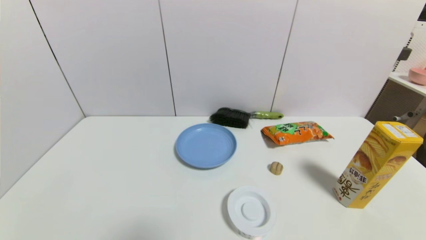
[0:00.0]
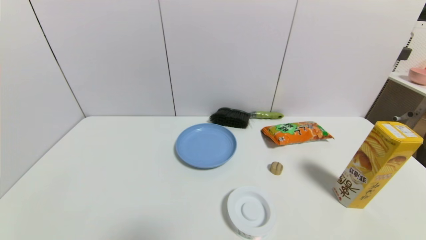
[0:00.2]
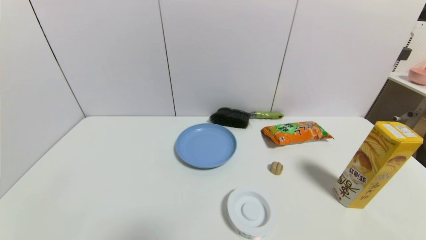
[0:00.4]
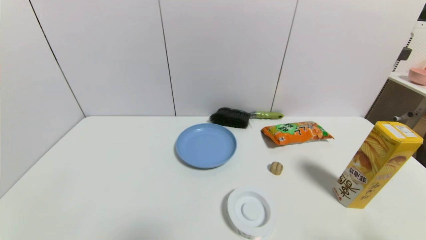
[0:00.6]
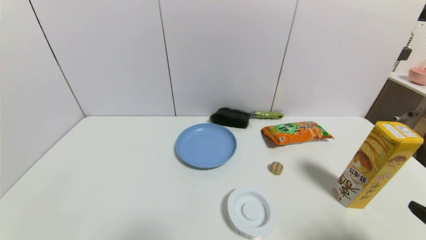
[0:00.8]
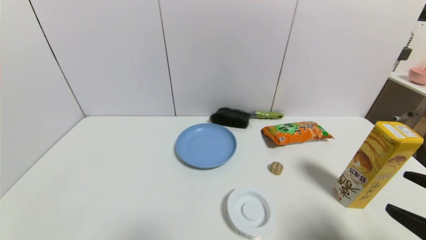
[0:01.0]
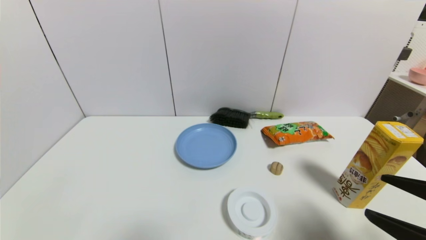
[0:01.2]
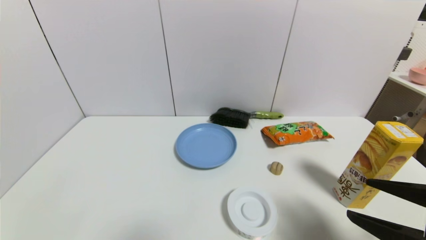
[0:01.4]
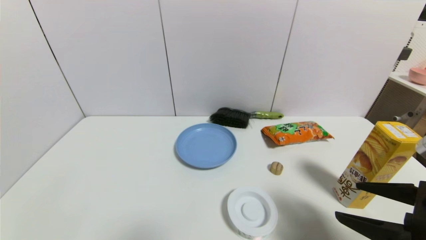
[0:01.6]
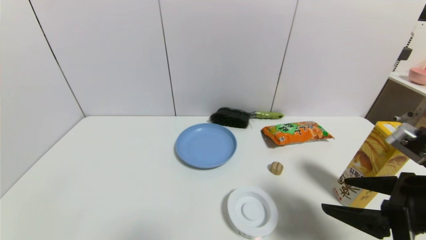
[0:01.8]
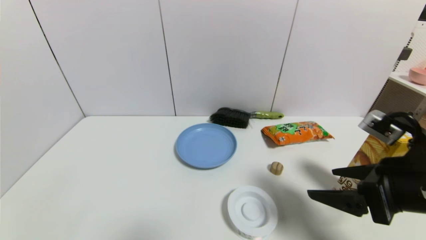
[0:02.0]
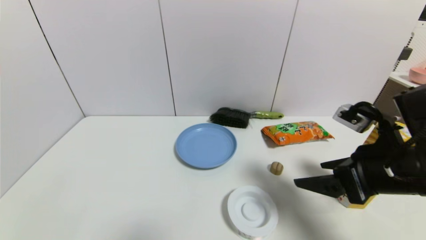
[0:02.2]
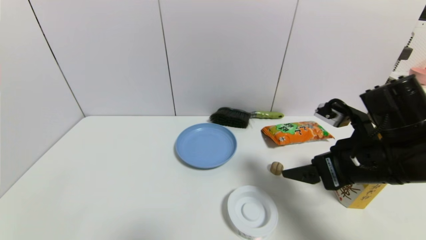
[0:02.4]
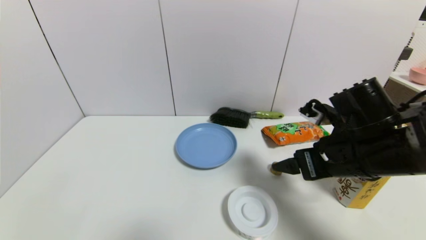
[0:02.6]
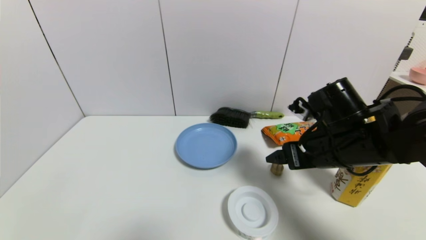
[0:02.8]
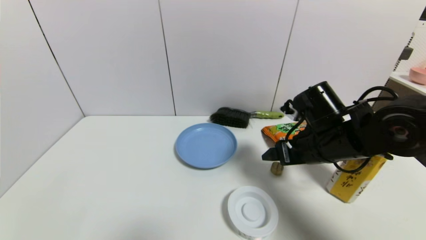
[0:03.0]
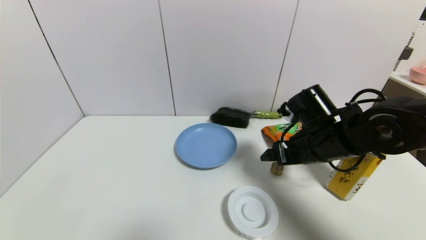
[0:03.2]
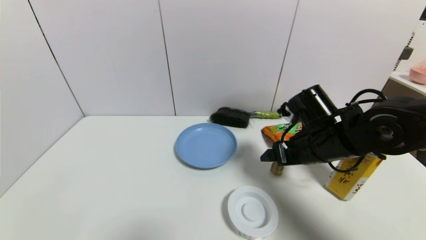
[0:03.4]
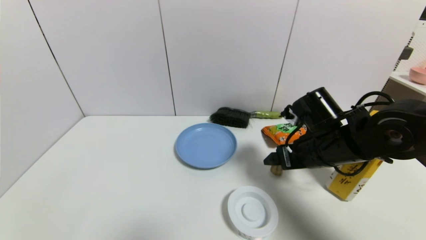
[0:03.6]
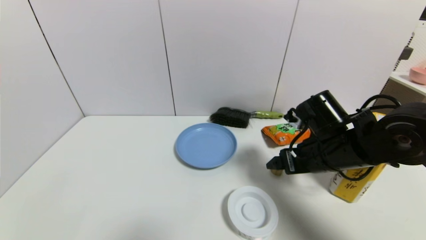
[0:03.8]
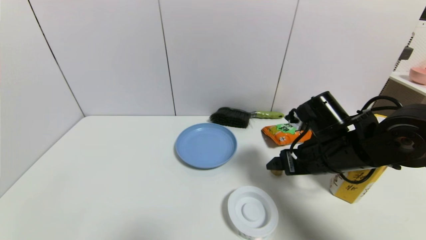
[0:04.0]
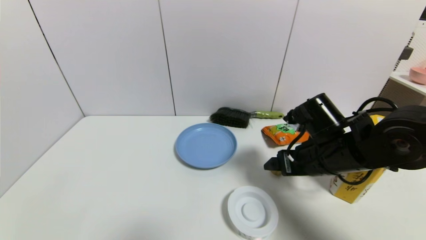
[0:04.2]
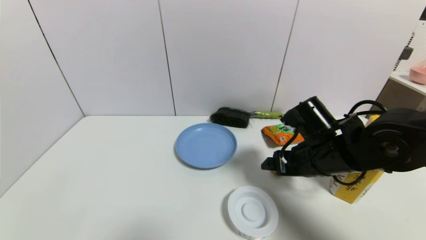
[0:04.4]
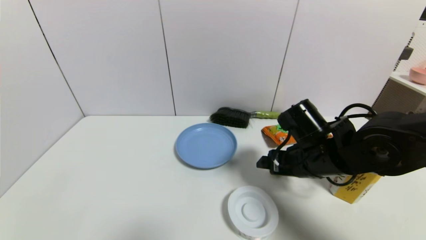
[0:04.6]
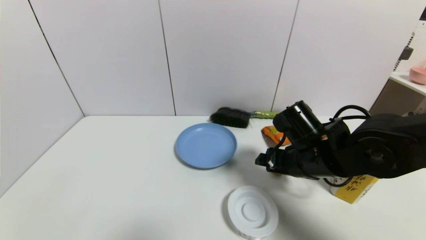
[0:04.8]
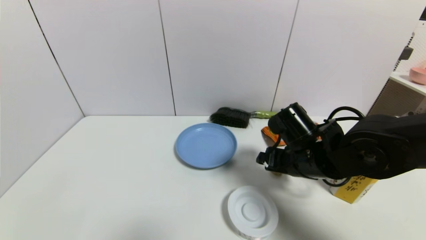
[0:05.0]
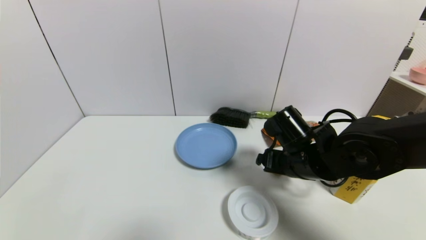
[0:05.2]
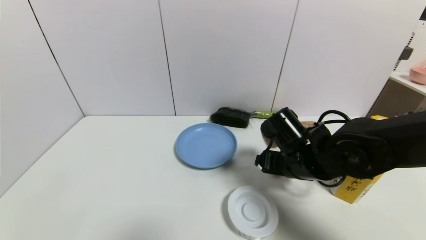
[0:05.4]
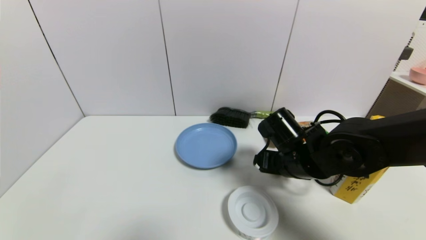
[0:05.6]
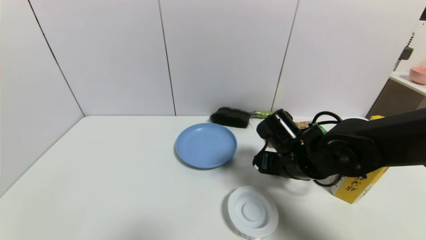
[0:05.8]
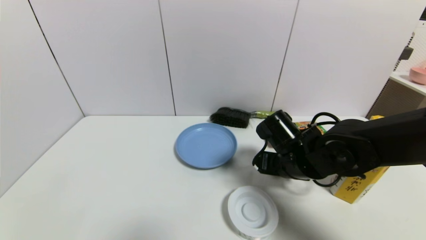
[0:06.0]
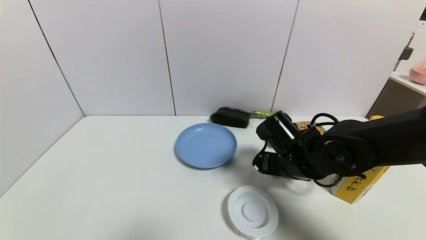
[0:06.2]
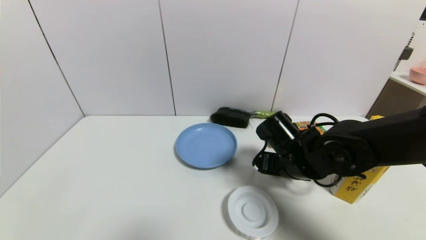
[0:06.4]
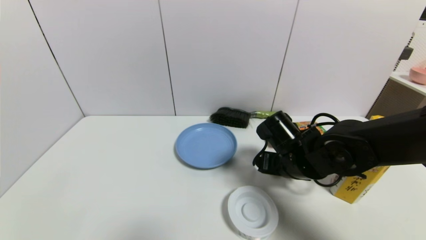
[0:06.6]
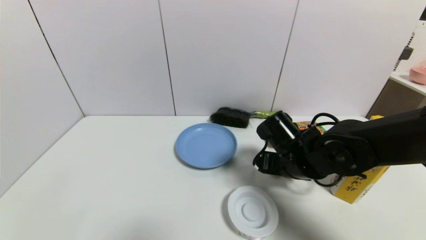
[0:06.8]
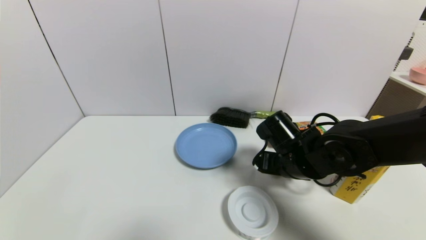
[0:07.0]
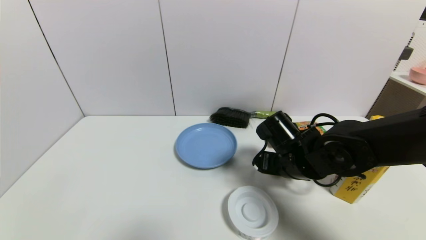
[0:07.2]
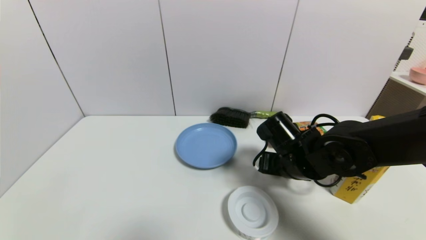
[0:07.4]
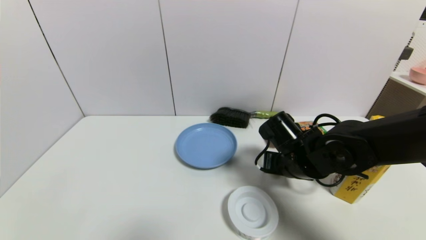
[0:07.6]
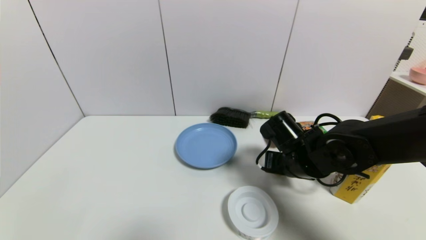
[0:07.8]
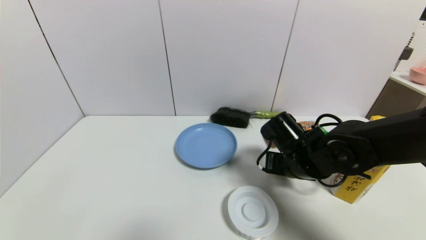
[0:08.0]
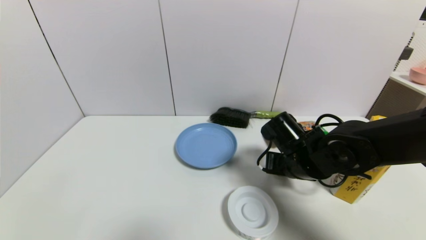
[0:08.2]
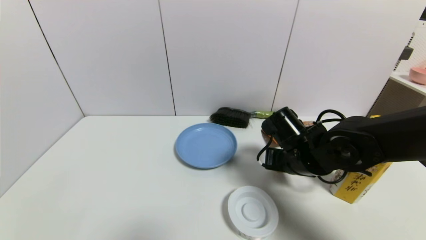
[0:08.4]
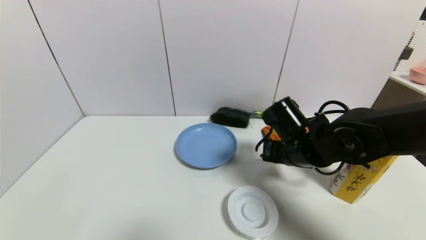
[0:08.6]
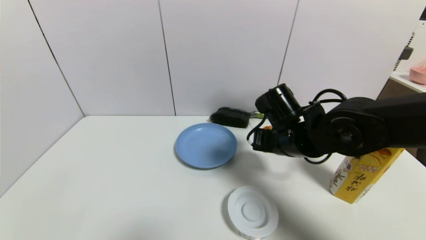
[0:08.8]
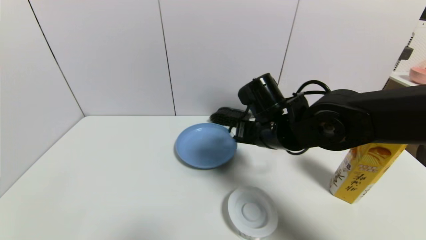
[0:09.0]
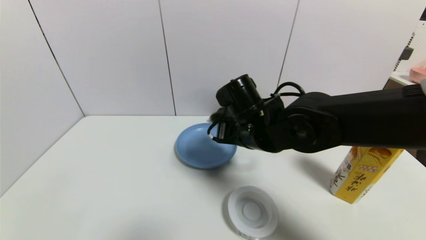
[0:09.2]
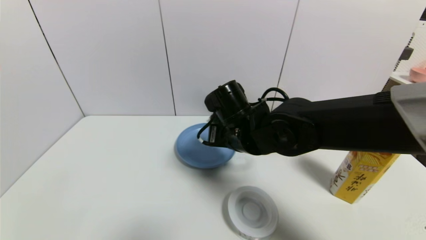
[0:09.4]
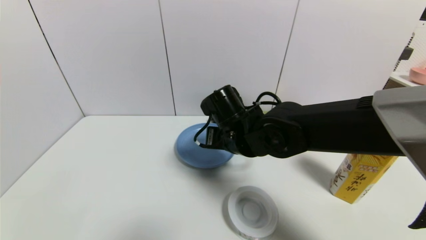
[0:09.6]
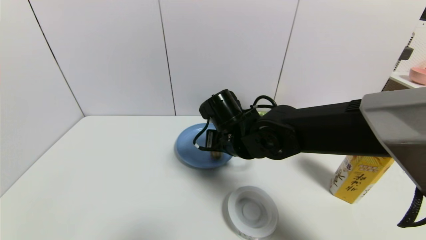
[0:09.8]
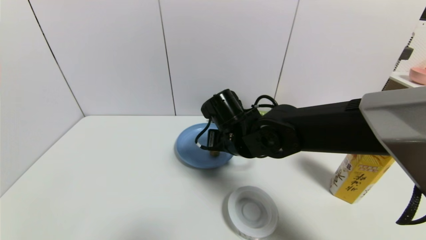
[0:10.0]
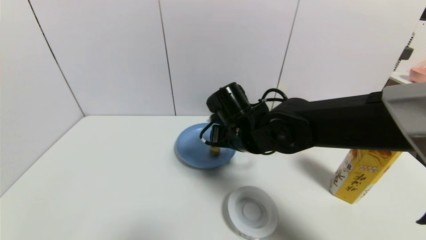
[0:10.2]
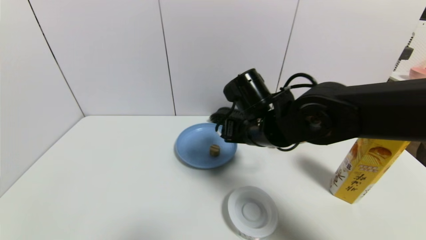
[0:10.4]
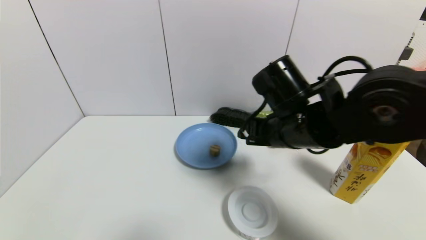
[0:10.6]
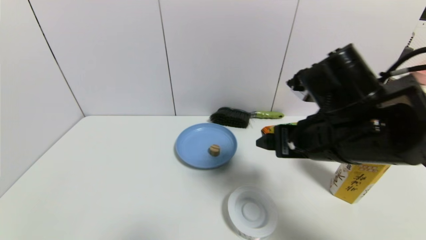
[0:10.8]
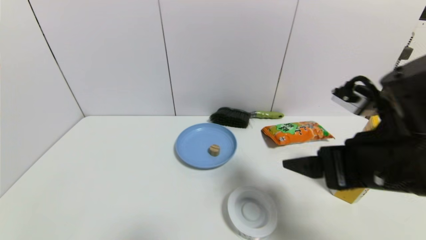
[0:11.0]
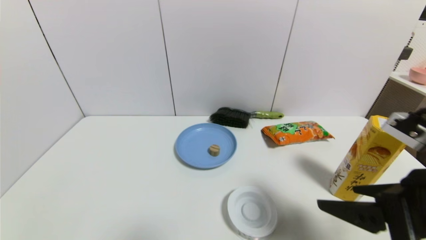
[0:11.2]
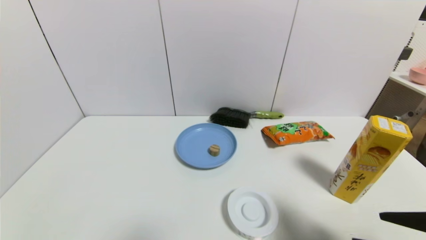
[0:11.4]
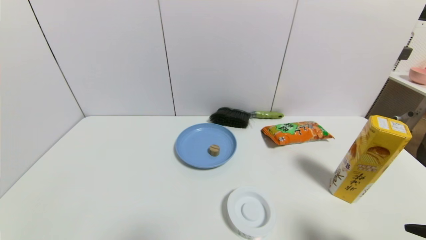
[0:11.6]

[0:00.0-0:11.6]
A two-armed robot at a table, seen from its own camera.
Task of the whole recording: use a gripper to pick the target object and place on the blue plate.
Step, 0:00.0 to 0:07.8: Grasp the round wooden block with the right gripper.
Step, 0:08.0 to 0:10.8: Place the round wooden block on the blue plate with the right gripper.
0:00.0 to 0:01.4: The right gripper is displaced upward, forward and to the left by some 20 cm.
0:01.4 to 0:02.8: The right gripper is displaced forward and to the left by about 20 cm.
0:02.8 to 0:04.4: The grippers make only small movements.
0:04.4 to 0:05.8: There are only small adjustments of the grippers.
0:05.8 to 0:07.2: Neither gripper changes place.
0:07.2 to 0:08.8: The right gripper travels upward by approximately 5 cm, and closes its fingers.
0:08.8 to 0:10.2: The right gripper shifts some 10 cm to the left, and opens up.
0:10.2 to 0:11.6: The right gripper is displaced to the right and backward by approximately 35 cm.

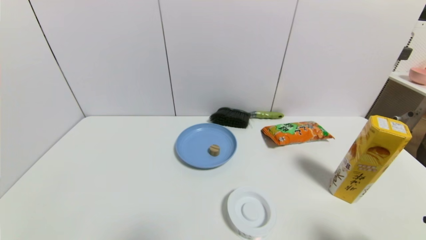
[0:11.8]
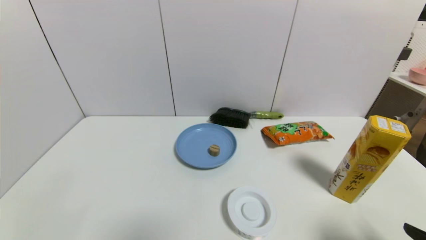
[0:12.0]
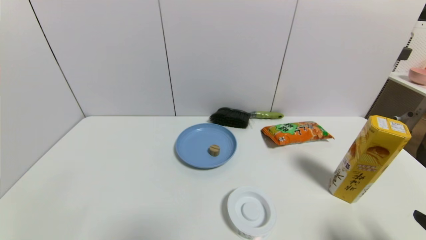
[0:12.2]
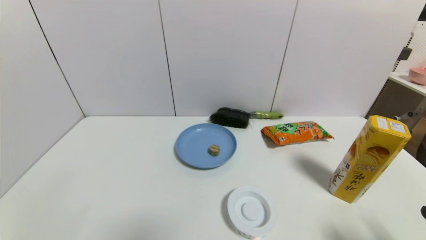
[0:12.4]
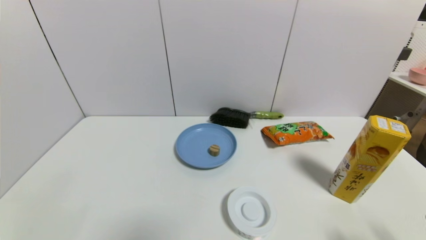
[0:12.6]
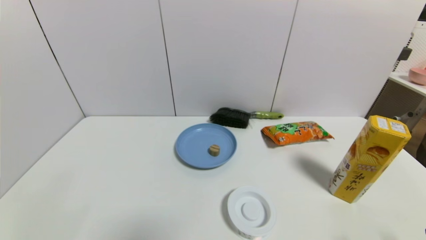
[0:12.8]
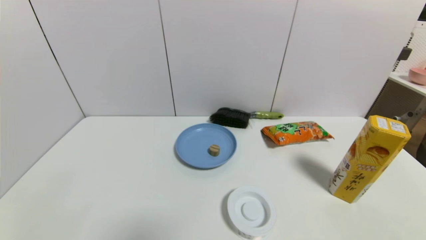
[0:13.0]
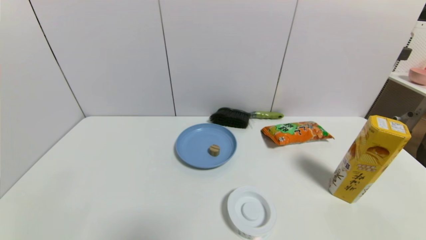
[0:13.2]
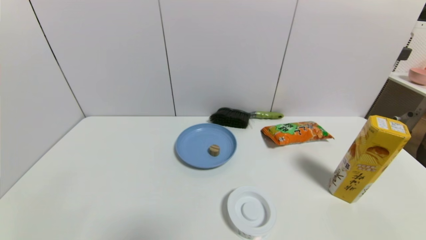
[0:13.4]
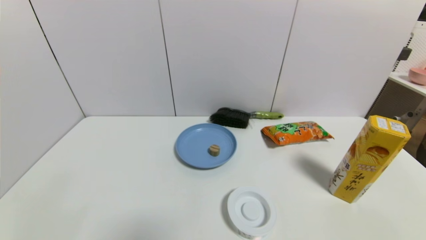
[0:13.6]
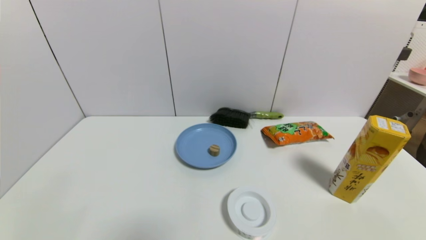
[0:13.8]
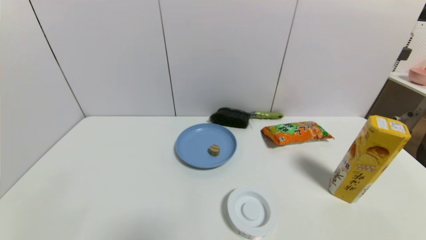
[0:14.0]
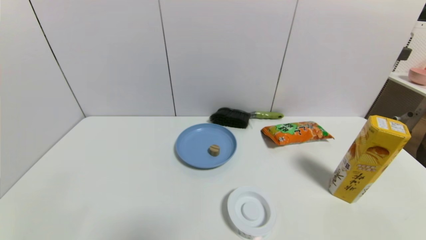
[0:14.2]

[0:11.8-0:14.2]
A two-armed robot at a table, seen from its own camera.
Task of the whole recording: use a gripper to pick the target object and place on the blue plate.
0:11.8 to 0:13.0: The right gripper is displaced downward by some 10 cm.

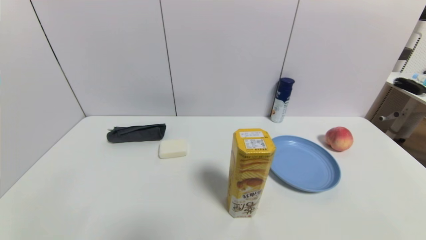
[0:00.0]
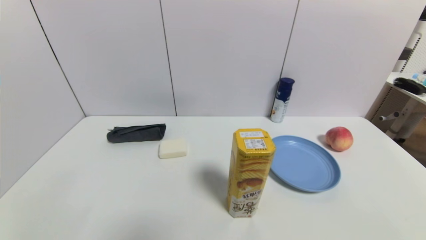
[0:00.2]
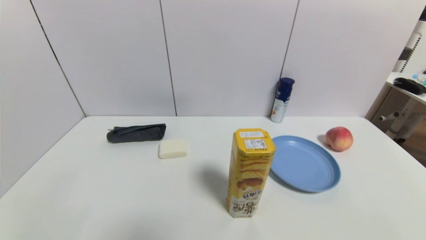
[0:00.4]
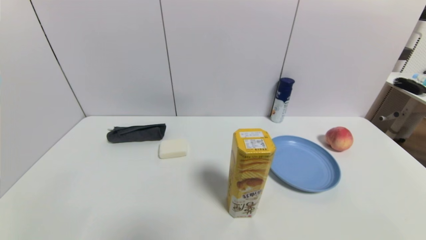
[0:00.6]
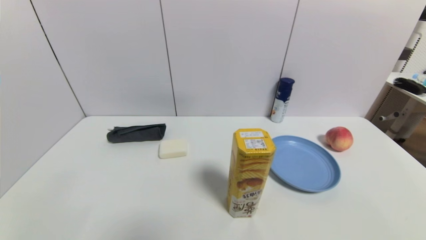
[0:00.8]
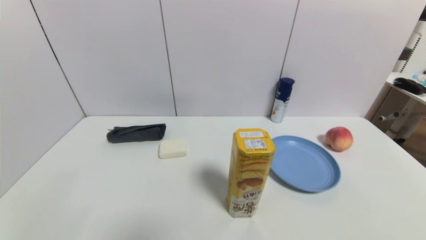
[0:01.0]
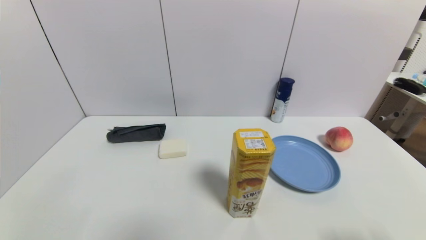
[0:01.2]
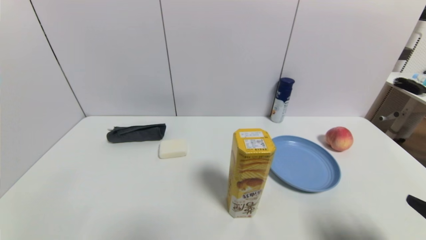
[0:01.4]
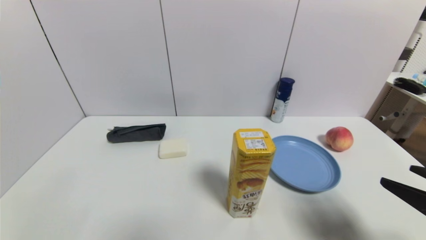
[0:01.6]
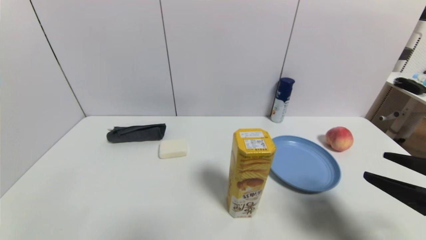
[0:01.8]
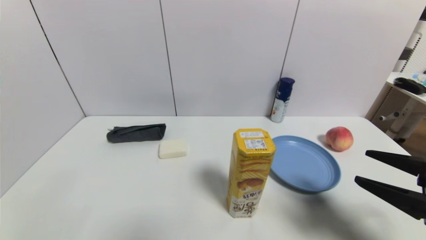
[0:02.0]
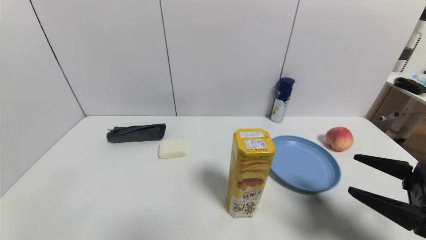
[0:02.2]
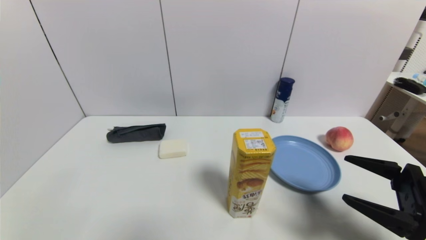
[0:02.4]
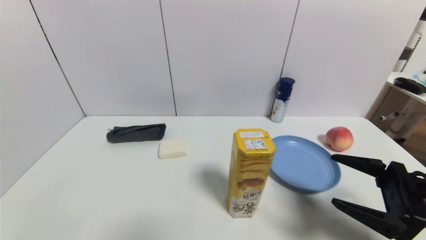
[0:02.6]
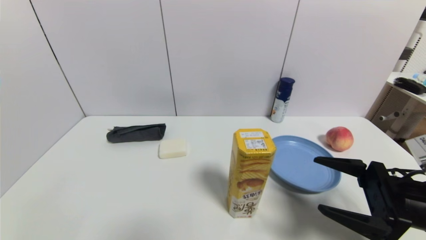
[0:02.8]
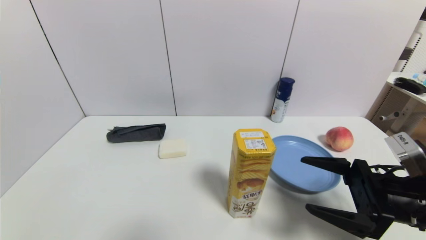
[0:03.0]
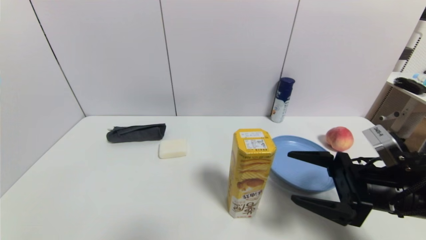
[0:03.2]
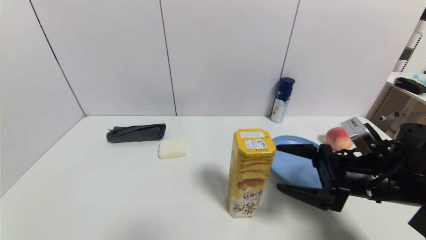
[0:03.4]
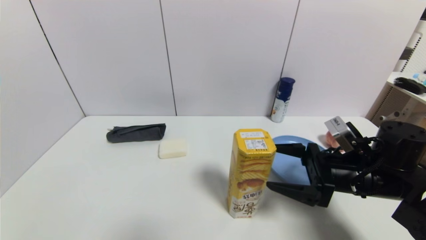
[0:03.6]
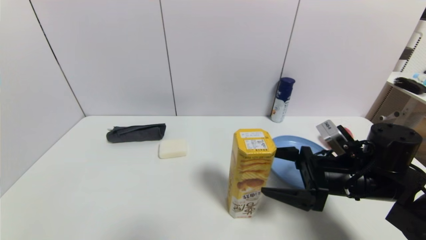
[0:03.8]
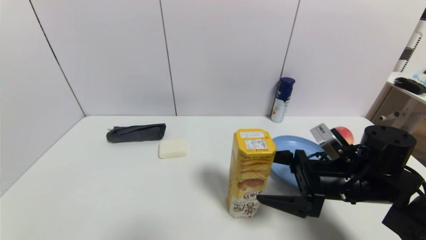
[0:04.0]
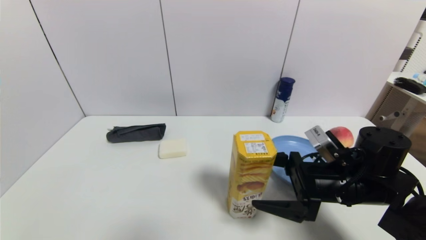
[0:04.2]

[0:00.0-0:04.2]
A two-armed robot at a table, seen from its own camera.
Task of the whole recording: use a gripper to pick the target object and place on the blue plate.
0:00.0 to 0:01.4: The right gripper heads upward and forward, covering about 15 cm.
0:01.4 to 0:02.8: The right gripper heads forward, covering approximately 10 cm.
0:02.8 to 0:04.2: The right gripper is displaced to the left and forward by about 10 cm.
